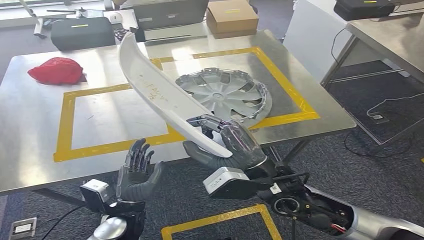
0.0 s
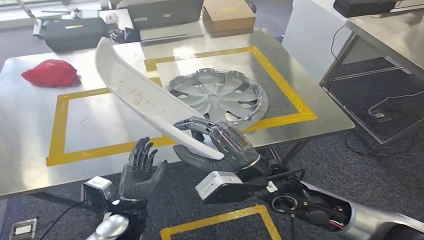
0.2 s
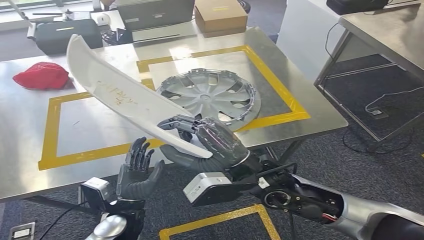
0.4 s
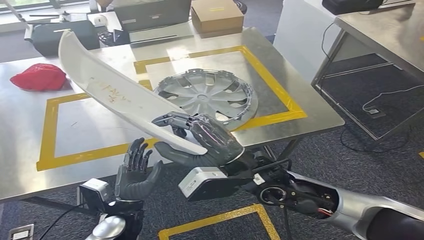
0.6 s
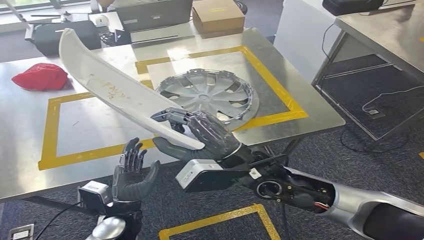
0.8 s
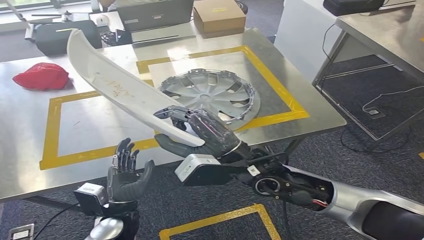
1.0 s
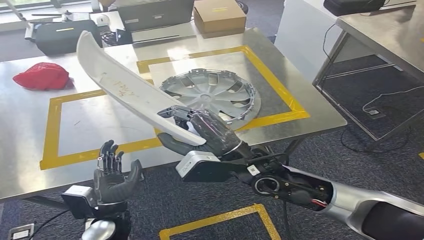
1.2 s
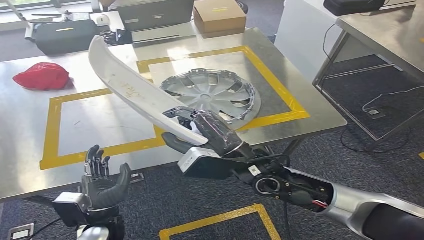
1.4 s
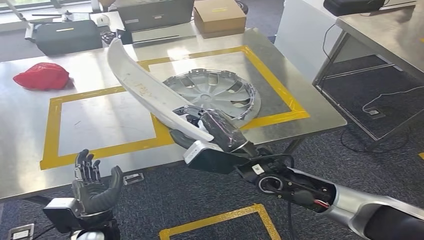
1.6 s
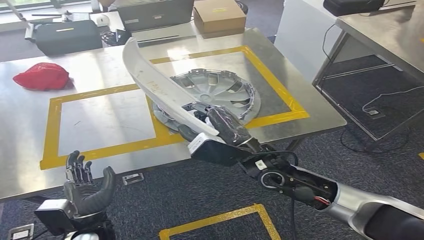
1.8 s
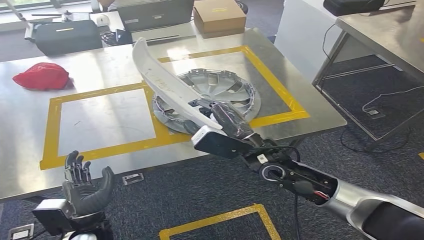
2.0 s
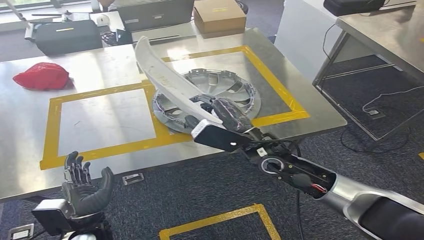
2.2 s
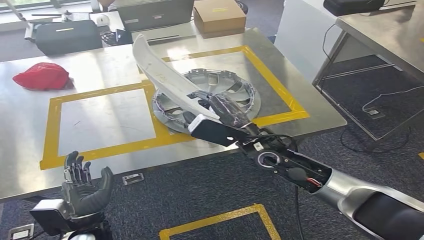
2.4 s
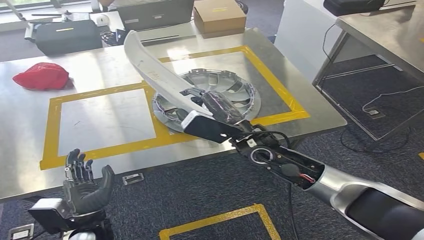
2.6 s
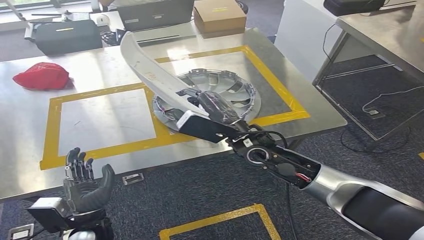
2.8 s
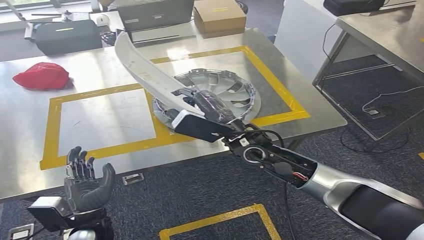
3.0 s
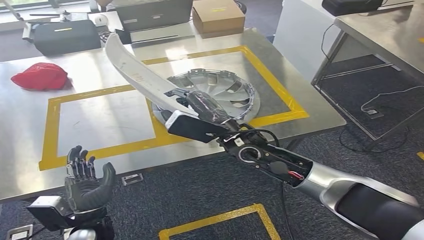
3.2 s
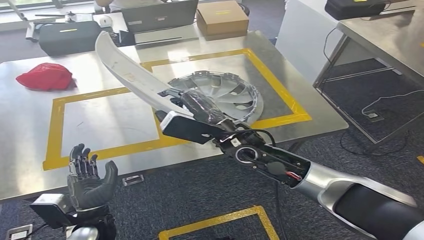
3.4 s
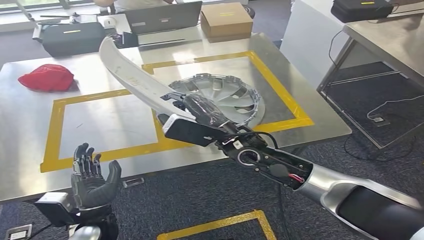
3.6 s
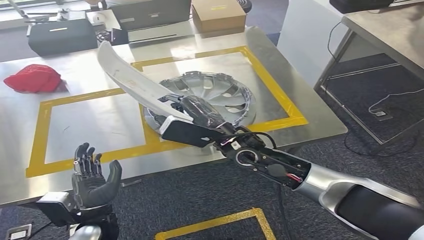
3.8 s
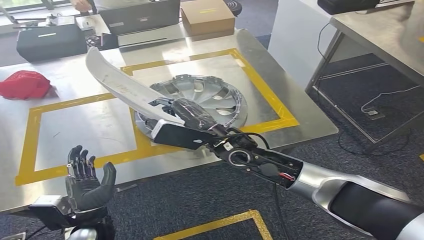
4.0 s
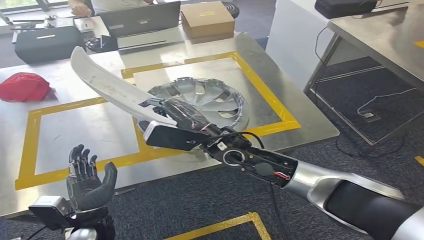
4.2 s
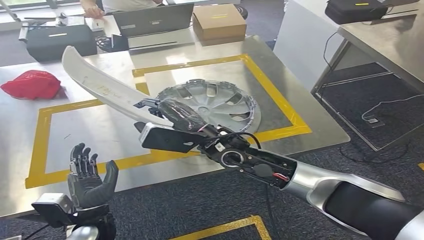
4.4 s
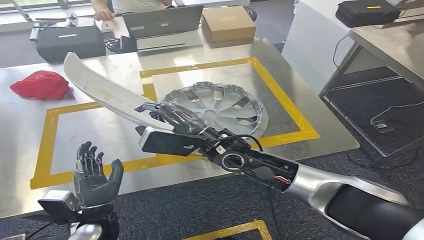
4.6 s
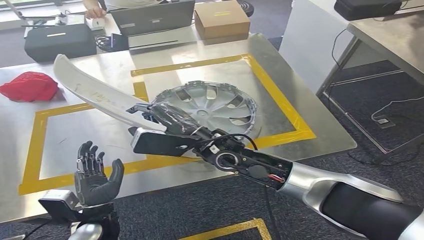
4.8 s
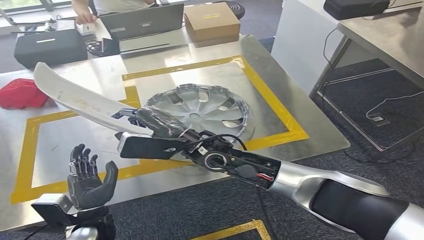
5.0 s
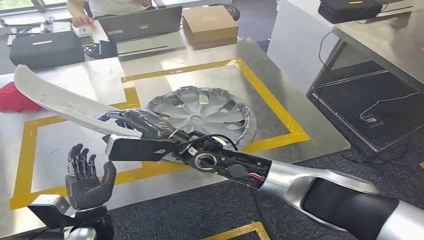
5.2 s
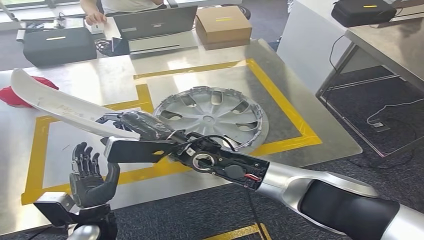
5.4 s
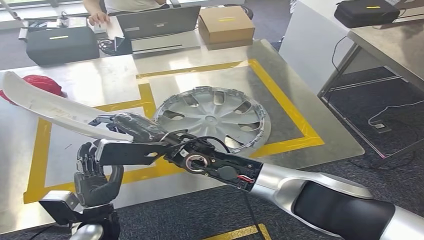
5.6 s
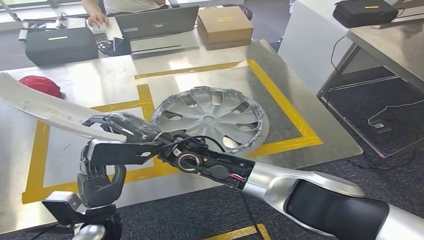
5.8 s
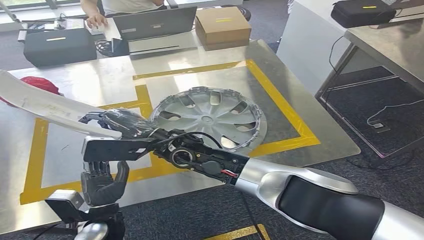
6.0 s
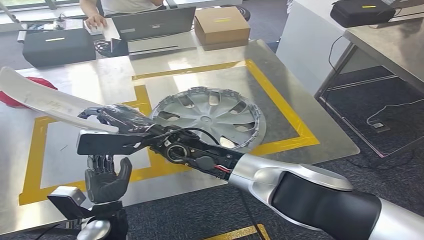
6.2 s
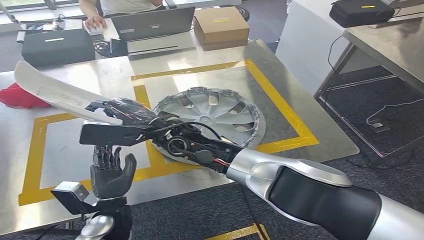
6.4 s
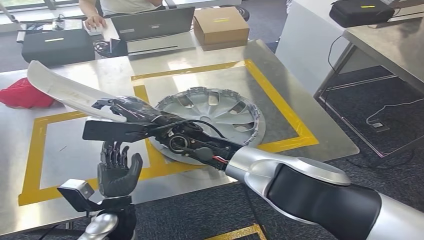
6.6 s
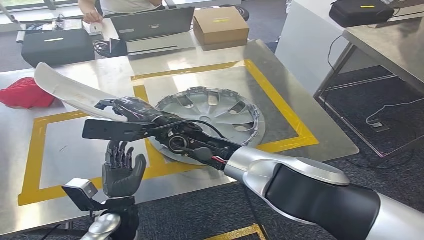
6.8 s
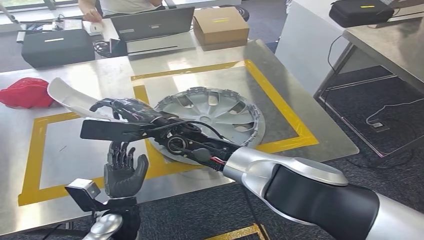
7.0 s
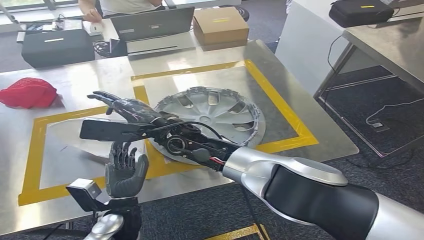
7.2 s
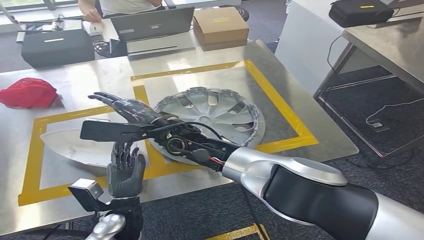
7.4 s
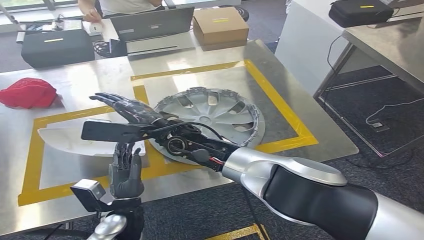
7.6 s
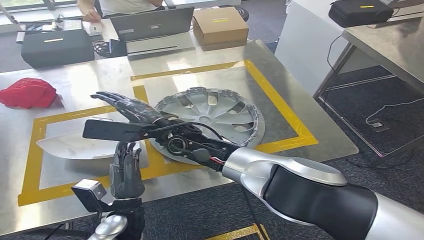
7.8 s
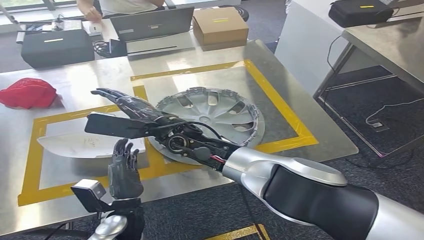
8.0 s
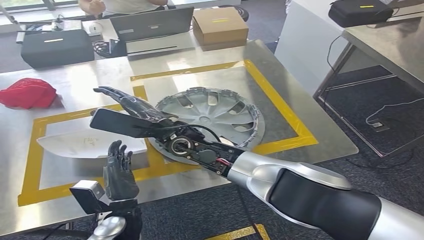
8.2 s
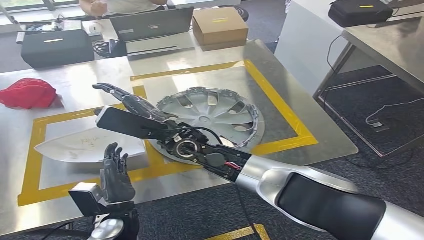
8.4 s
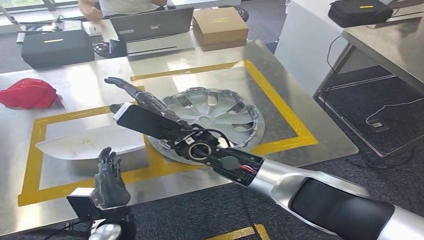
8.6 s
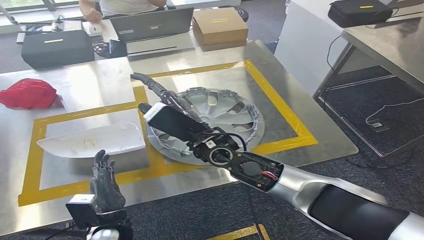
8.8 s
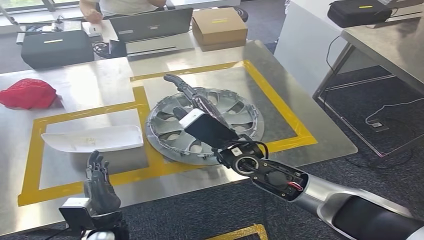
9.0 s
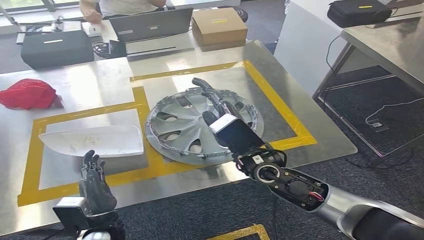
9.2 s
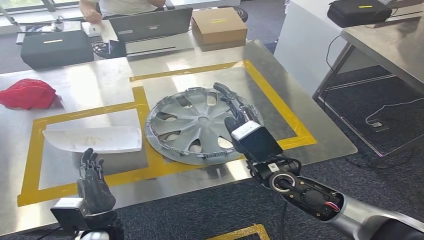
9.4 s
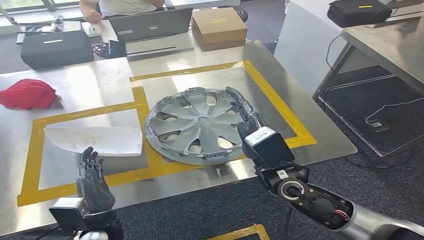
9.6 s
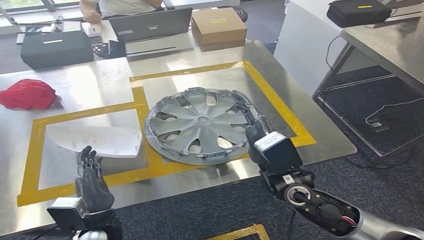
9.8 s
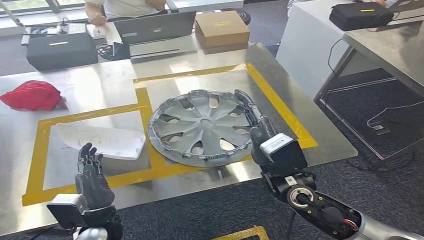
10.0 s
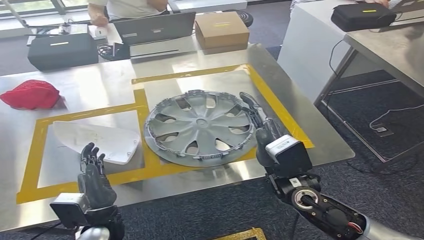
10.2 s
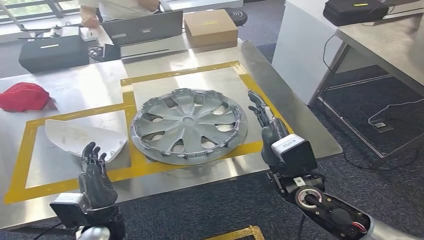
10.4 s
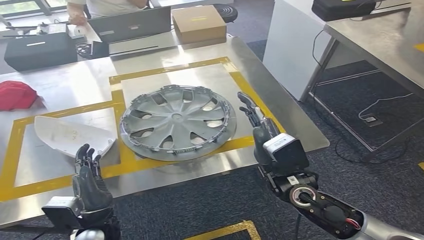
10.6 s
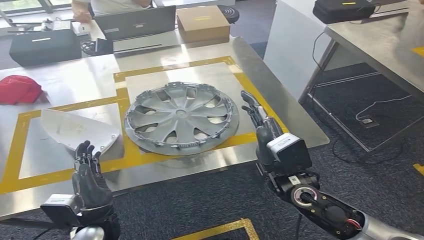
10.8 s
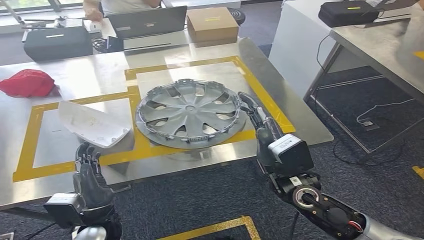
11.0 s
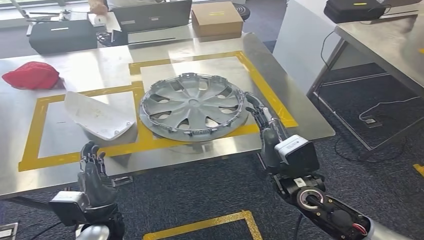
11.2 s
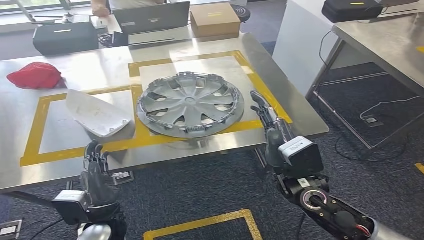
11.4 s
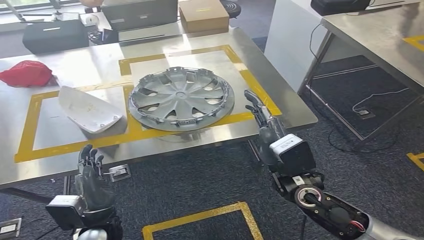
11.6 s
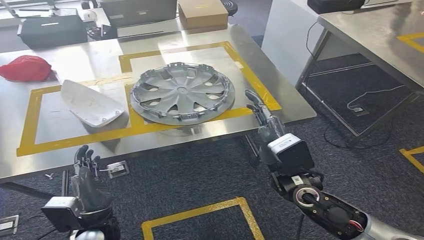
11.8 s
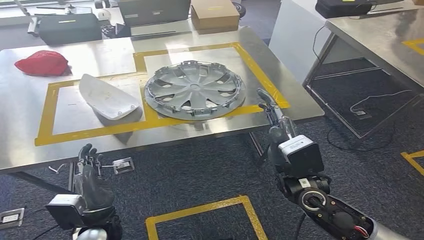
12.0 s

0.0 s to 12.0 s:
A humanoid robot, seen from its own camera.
Step, 0.0 to 10.2 s: Insert the small component into the corresponding slot on the workbench.
1.6 to 3.0 s: The right hand shifts some 5 cm forward.

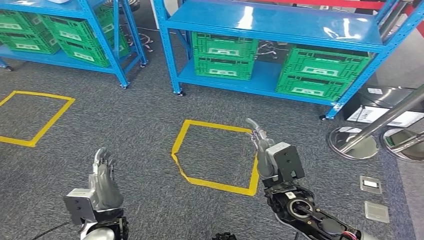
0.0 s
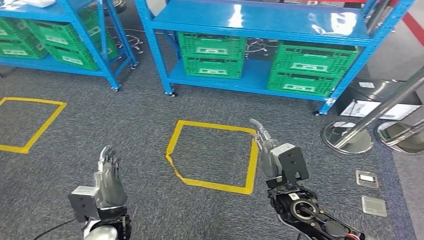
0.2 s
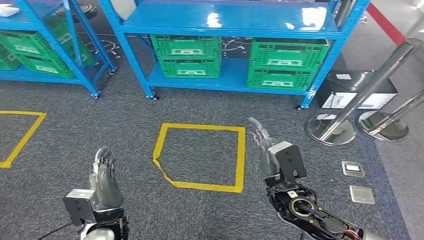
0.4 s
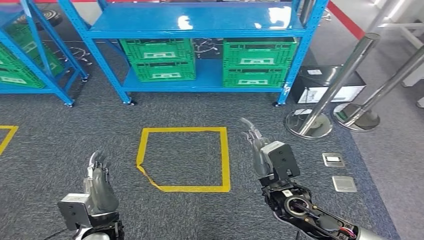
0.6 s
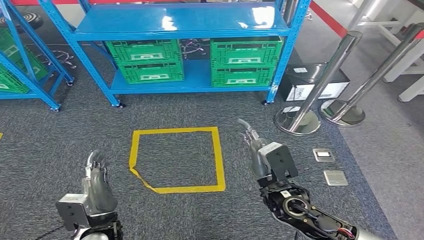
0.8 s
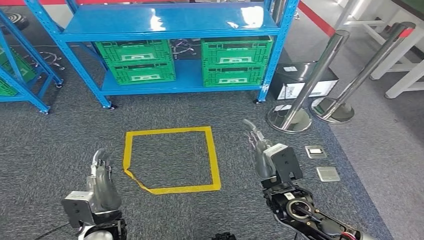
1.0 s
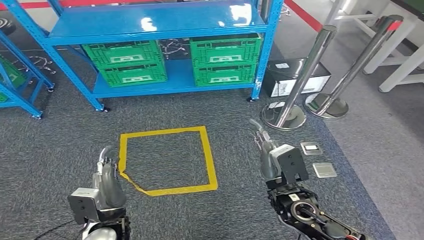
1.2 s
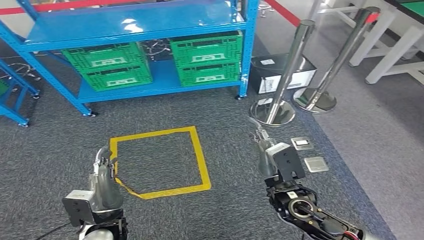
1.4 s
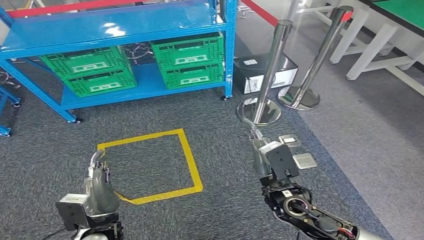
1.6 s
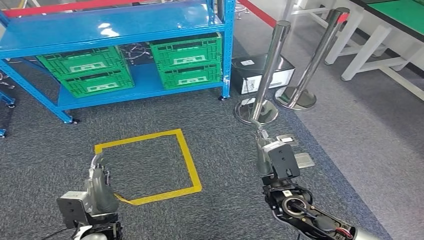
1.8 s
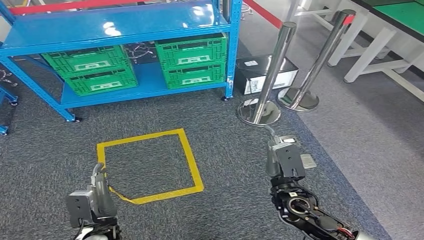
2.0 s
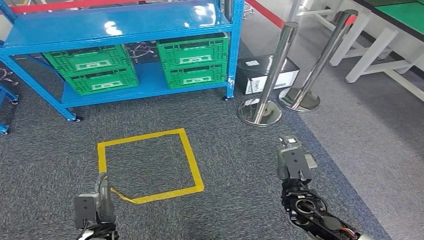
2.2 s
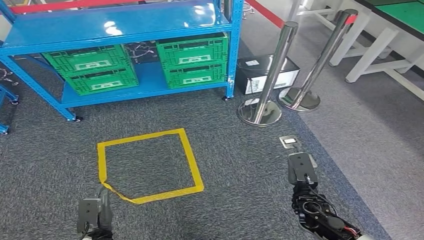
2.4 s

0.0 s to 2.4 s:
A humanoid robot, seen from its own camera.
Step, 0.0 to 2.4 s: Return to the initial position at the workbench.
